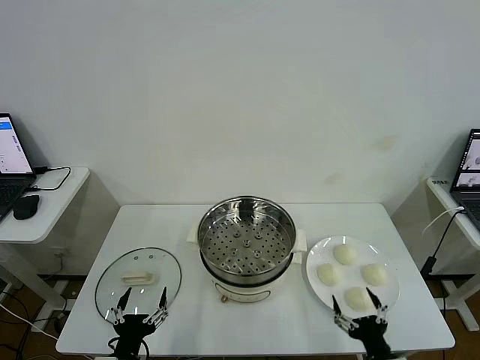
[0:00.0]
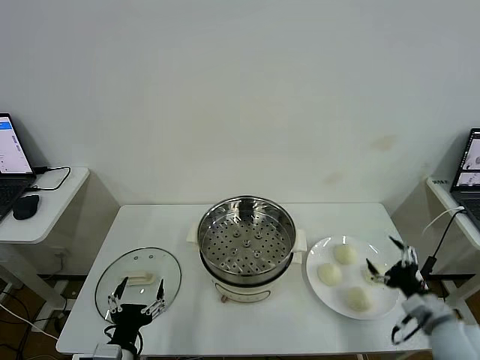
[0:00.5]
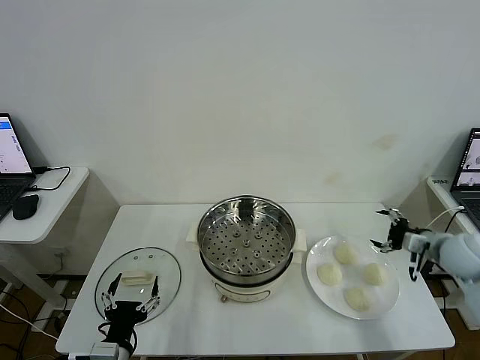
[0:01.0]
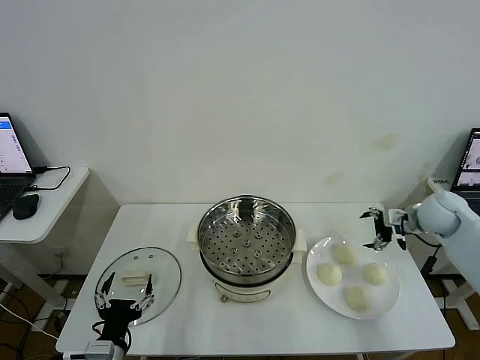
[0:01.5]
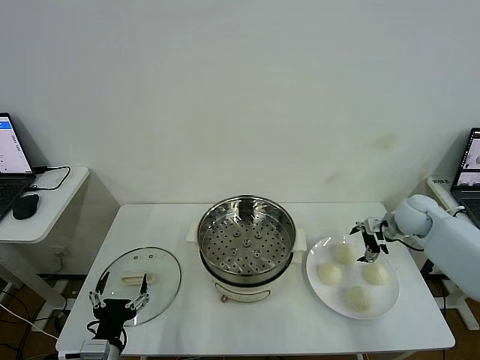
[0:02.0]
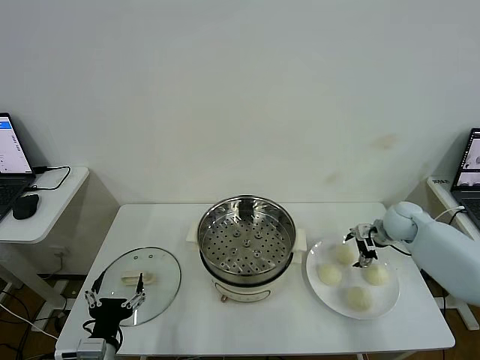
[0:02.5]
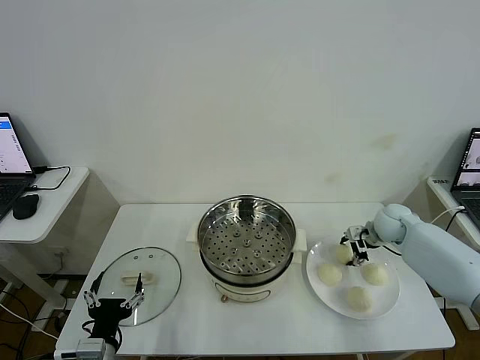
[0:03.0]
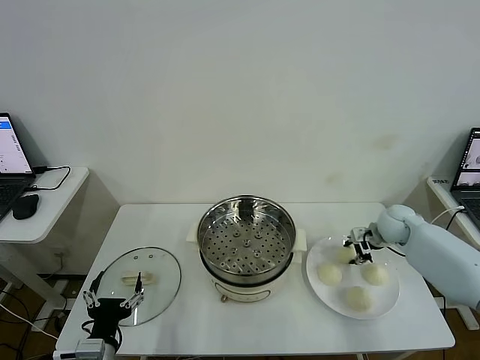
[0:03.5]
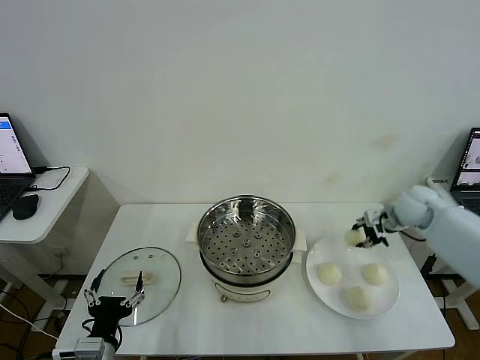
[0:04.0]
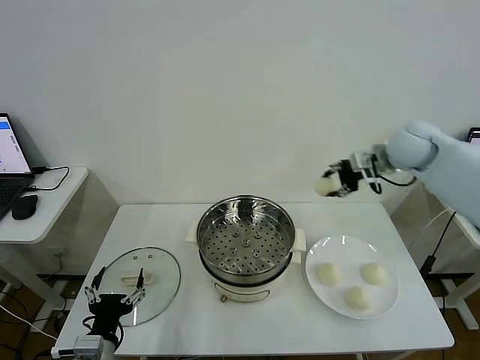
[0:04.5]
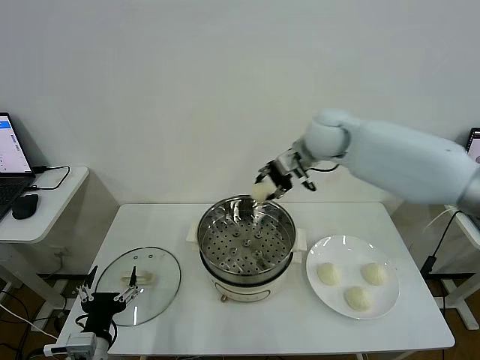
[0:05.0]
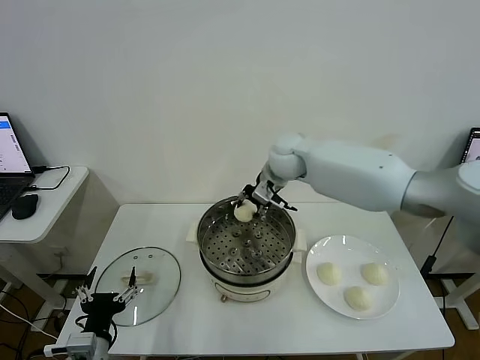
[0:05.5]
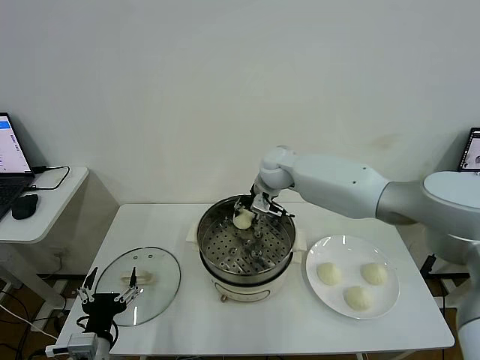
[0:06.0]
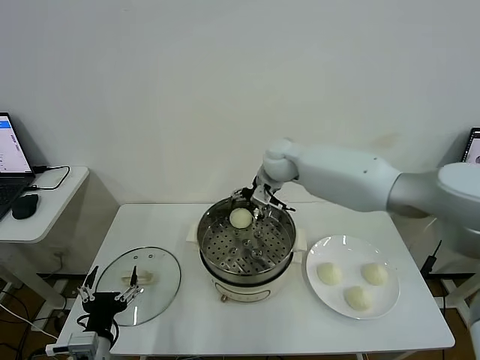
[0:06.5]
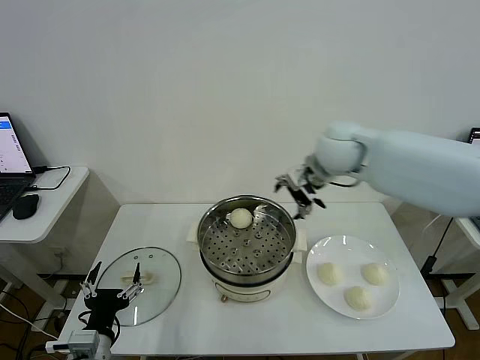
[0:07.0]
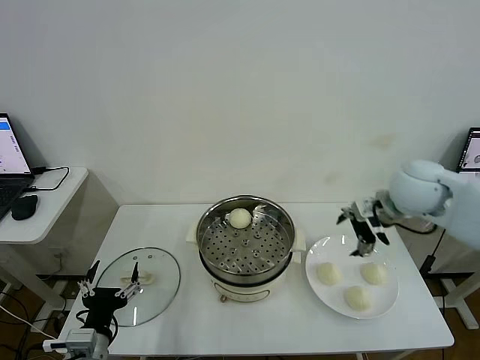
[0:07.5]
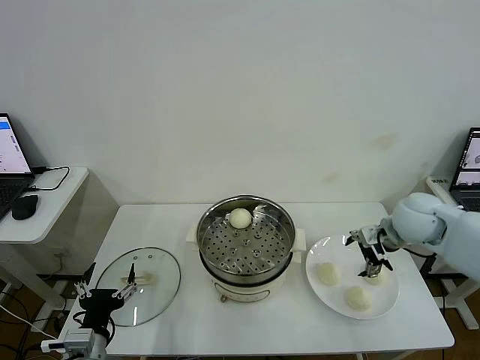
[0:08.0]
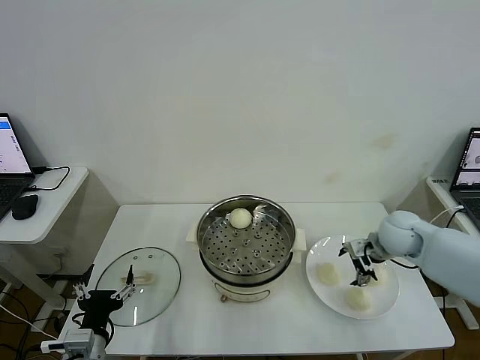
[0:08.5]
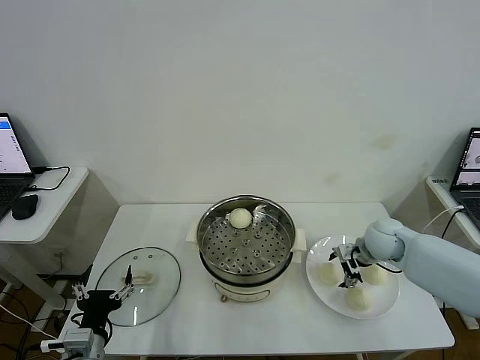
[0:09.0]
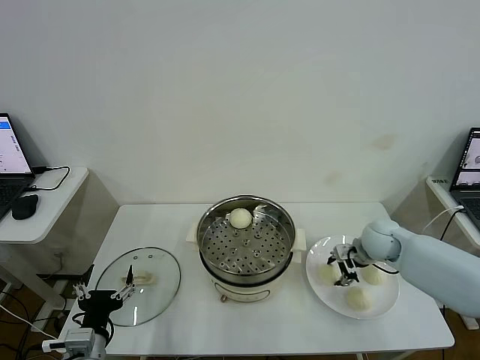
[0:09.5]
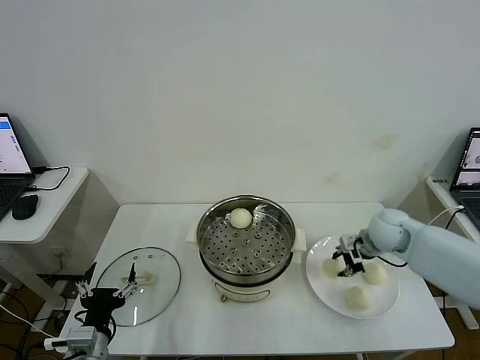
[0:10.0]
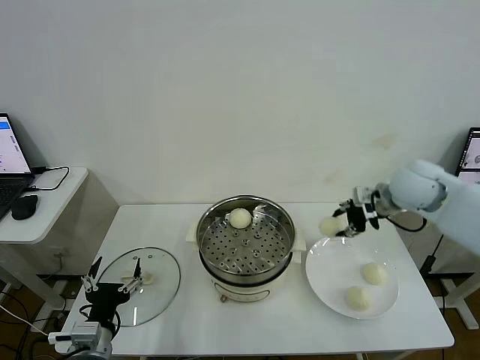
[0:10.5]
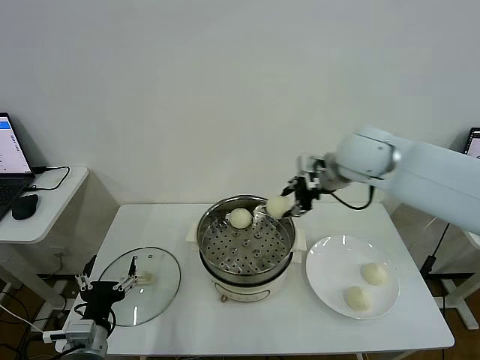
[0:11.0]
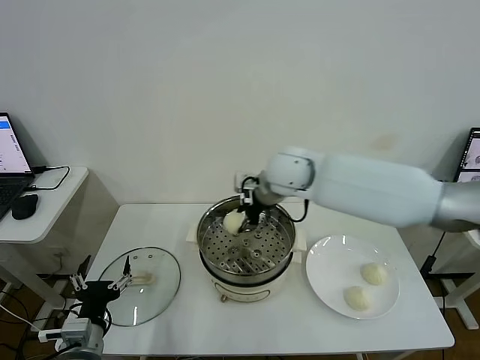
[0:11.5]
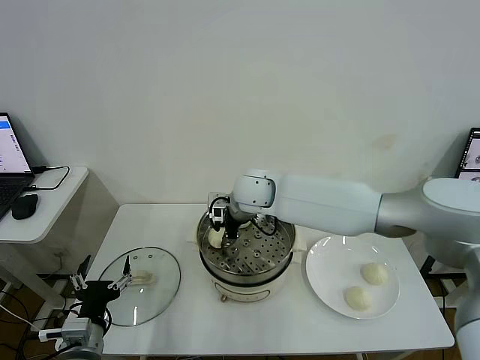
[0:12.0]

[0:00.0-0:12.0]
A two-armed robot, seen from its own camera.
Task of the whole recording: take steamed baozi put them in steamer then cover it.
Step, 0:00.0 to 0:03.0: Grasp the baozi in the plate with right gripper.
Step, 0:03.5 to 0:06.0: Place the baozi on the steamer with right gripper.
Step, 0:06.5 to 0:09.5: Grasp the baozi in the plate with right gripper.
0:02.0 to 0:04.0: The right gripper goes approximately 10 cm upward, and closes its fingers.
0:04.0 to 0:06.0: The right gripper travels to the left by roughly 30 cm.
0:06.0 to 0:08.0: The right gripper goes roughly 30 cm to the right and backward, and opens its fingers.
0:08.0 to 0:10.0: The right gripper closes.
0:10.0 to 0:12.0: The right gripper goes some 35 cm to the left.

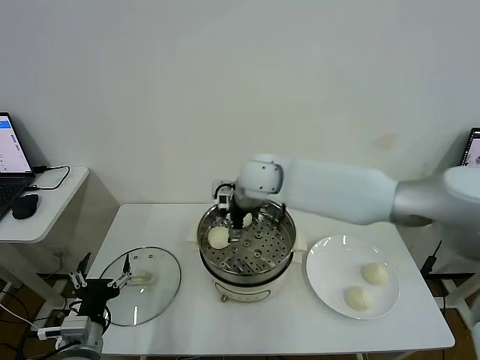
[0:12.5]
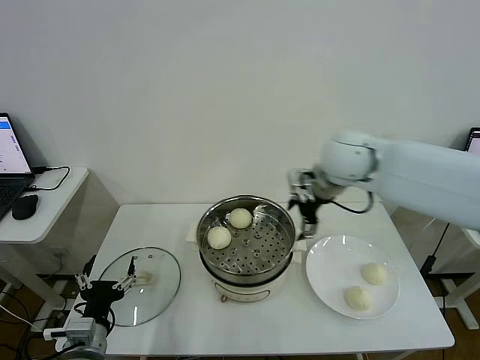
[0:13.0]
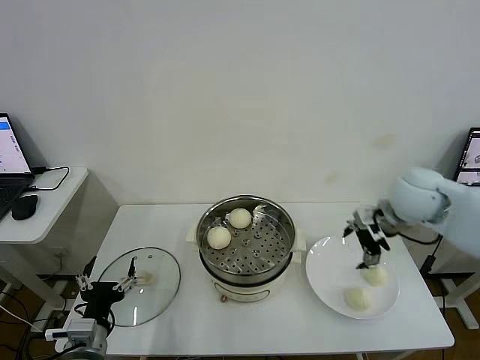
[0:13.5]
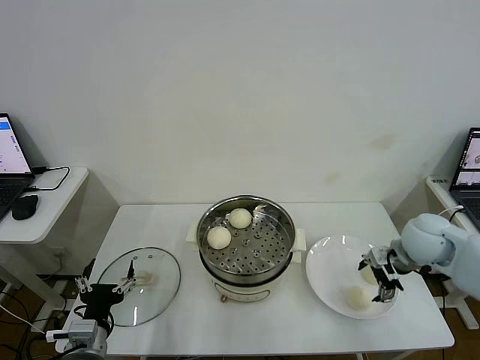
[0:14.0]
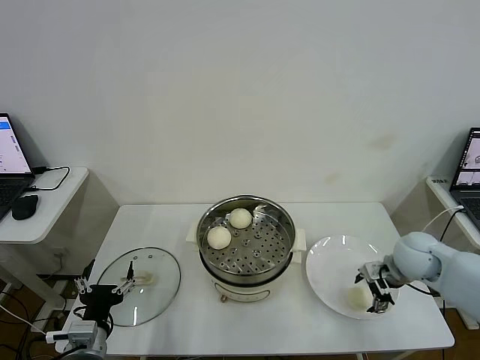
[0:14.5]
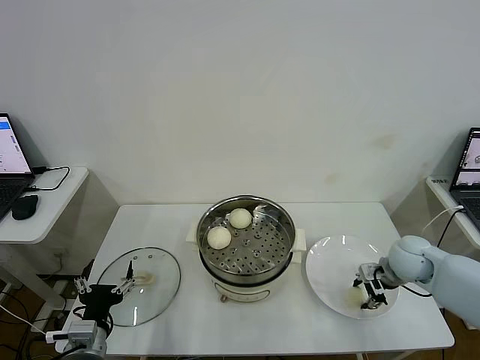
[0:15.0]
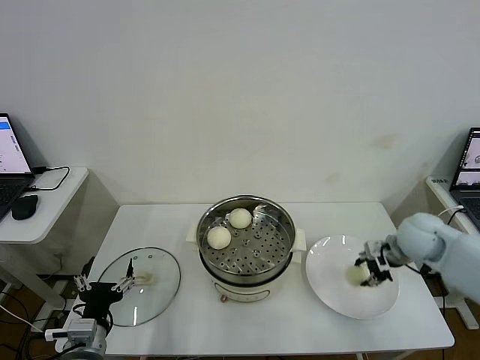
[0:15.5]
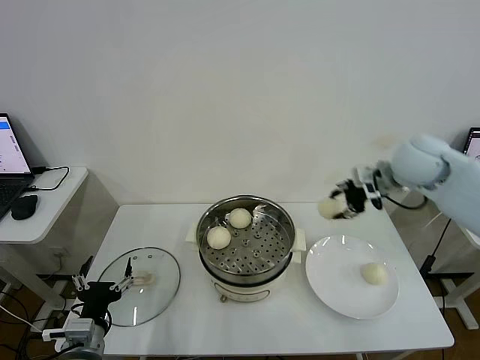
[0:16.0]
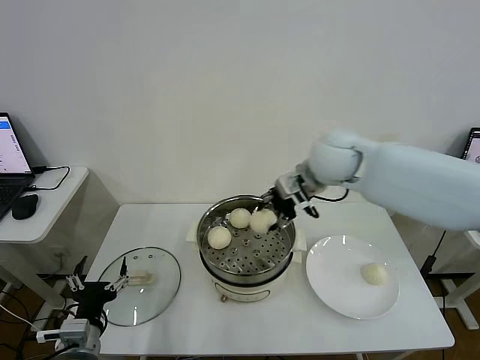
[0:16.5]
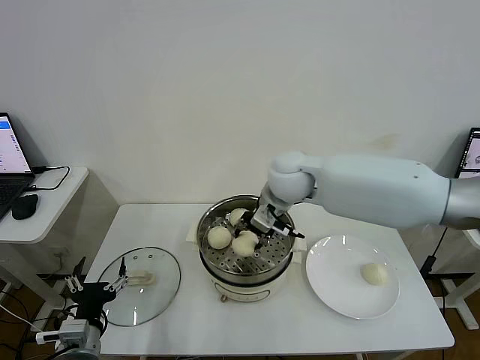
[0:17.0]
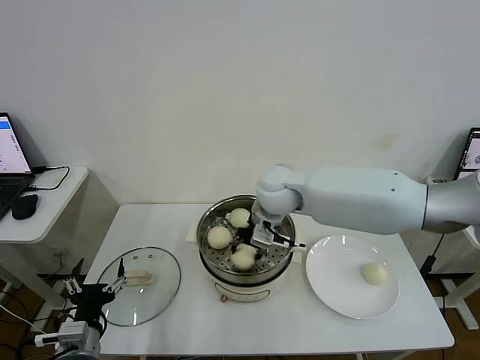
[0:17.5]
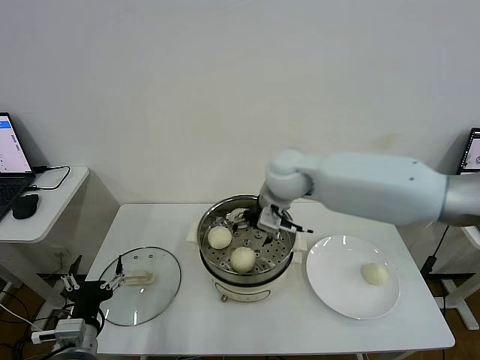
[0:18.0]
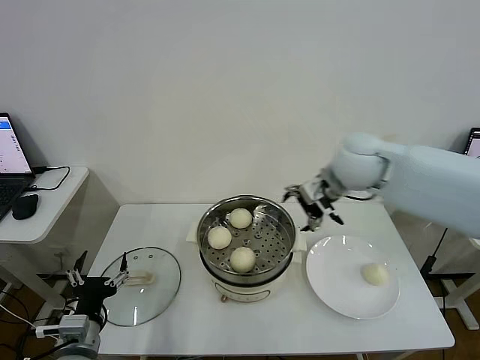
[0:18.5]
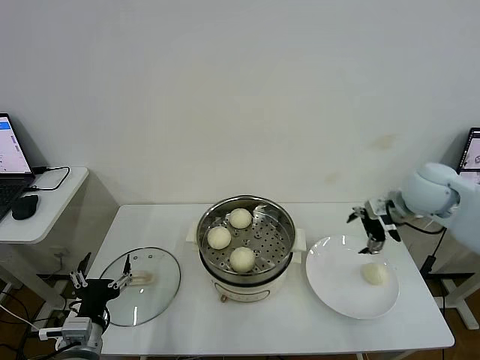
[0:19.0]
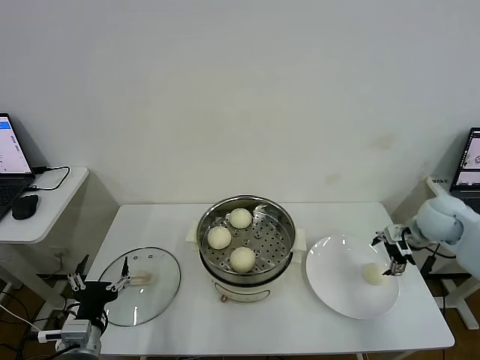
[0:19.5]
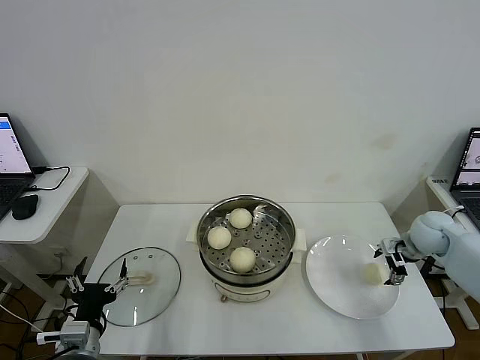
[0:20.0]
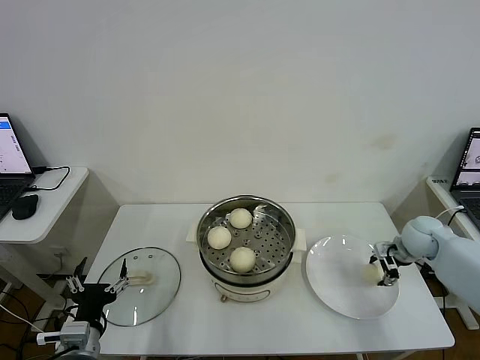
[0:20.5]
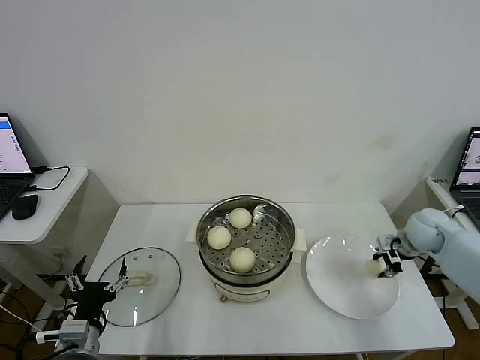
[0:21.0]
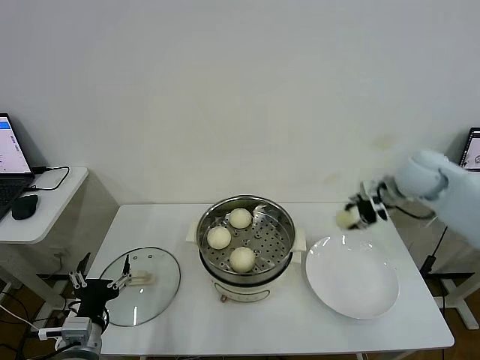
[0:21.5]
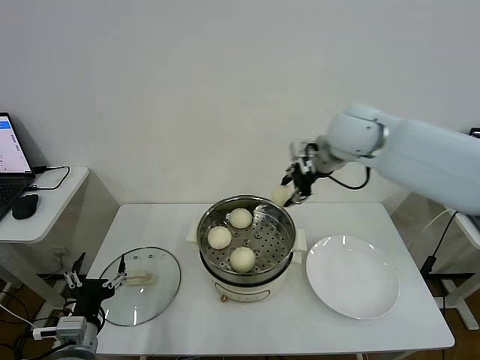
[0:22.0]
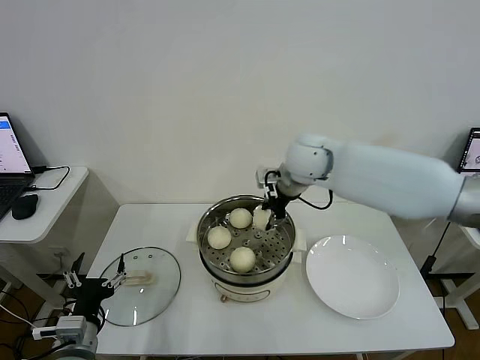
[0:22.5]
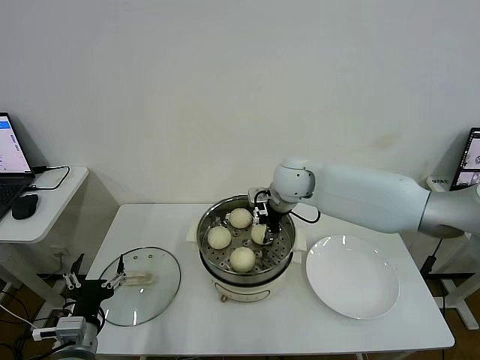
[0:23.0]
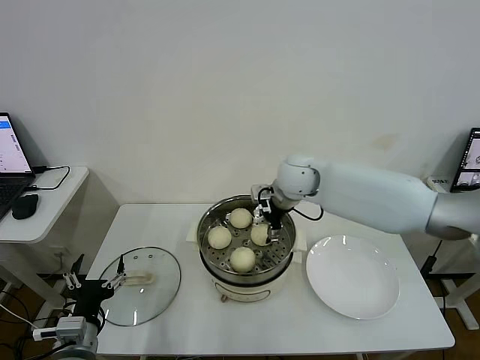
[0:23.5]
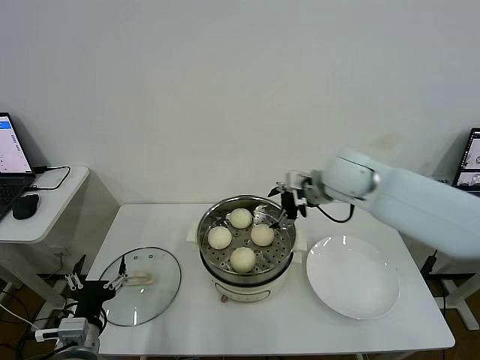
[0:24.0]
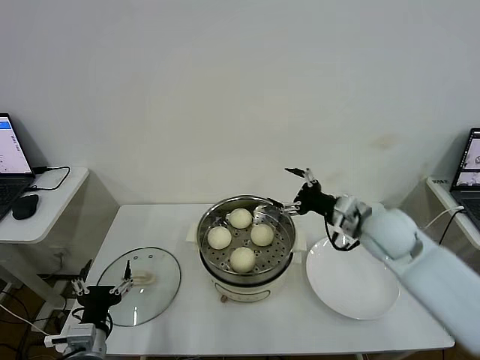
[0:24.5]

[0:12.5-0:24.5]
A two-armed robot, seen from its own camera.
Task of the whole recording: take steamed baozi put them in steamer then cover it.
Step, 0:13.0 to 0:15.0: Grasp the baozi in the plate with right gripper.
Step, 0:15.5 to 0:17.5: Place the baozi on the steamer with right gripper.
Step, 0:18.0 to 0:20.5: Grasp the baozi in the plate with right gripper.
Step, 0:21.0 to 0:23.5: Place the baozi on the steamer with right gripper.
0:12.5 to 0:14.5: The right gripper goes roughly 35 cm to the right and downward.
0:14.5 to 0:16.5: The right gripper moves to the left, upward and forward, some 30 cm, and closes.
0:16.5 to 0:18.5: The right gripper goes approximately 5 cm to the right, and opens its fingers.
0:18.5 to 0:20.5: The right gripper is displaced downward and to the right by roughly 30 cm, and closes up.
0:20.5 to 0:22.5: The right gripper travels to the left and upward by roughly 35 cm, and closes its fingers.
0:22.5 to 0:24.5: The right gripper travels to the right, backward and downward by approximately 20 cm, and opens up.

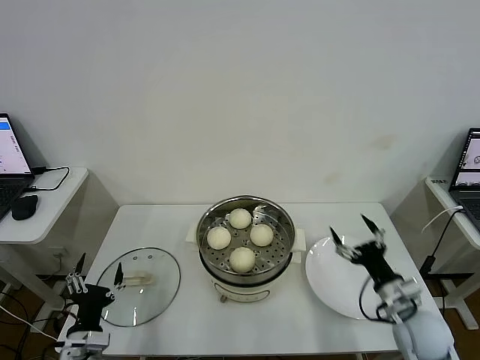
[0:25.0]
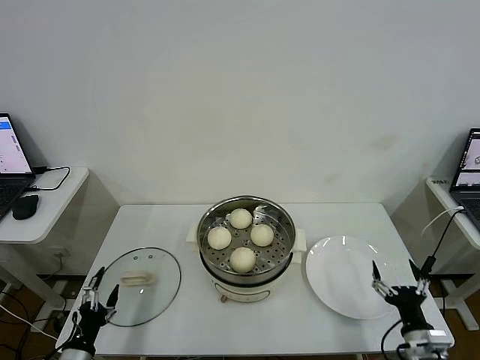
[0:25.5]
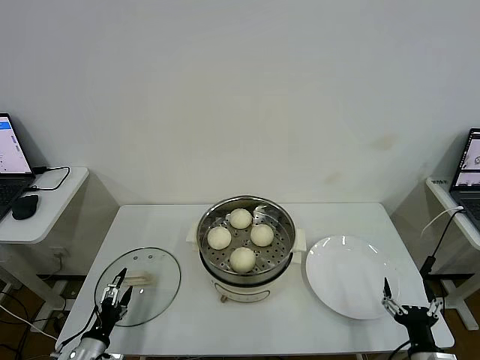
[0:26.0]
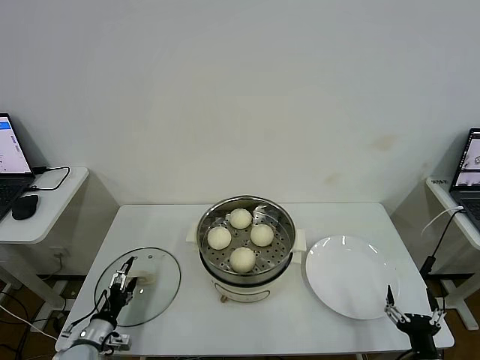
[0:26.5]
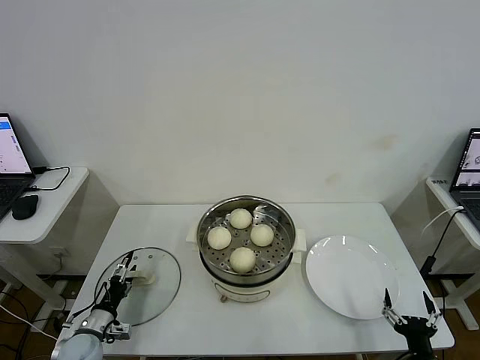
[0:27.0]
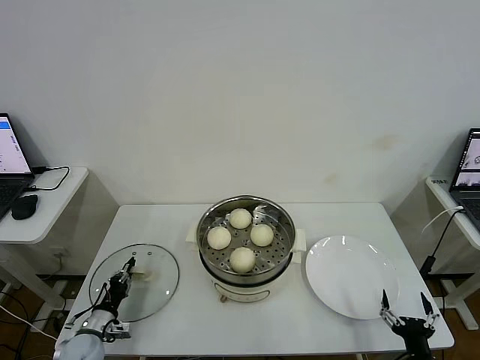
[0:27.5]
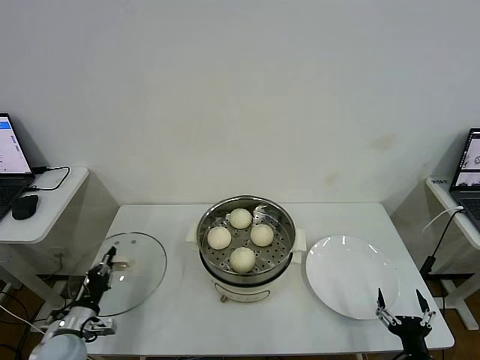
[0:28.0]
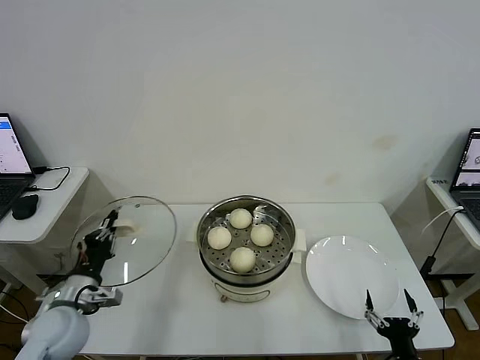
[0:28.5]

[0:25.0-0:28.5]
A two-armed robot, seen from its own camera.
Task of the whole recording: take steamed baozi put them in steamer then cover it.
Step, 0:25.0 to 0:27.5: Grasp the pot lid with left gripper.
0:25.0 to 0:27.0: The right gripper goes roughly 15 cm backward and downward; the left gripper travels downward, forward and to the left by about 15 cm.
0:27.0 to 0:28.5: The left gripper heads upward, covering some 15 cm, and closes its fingers.
